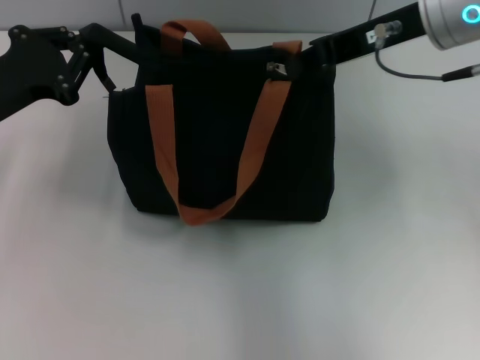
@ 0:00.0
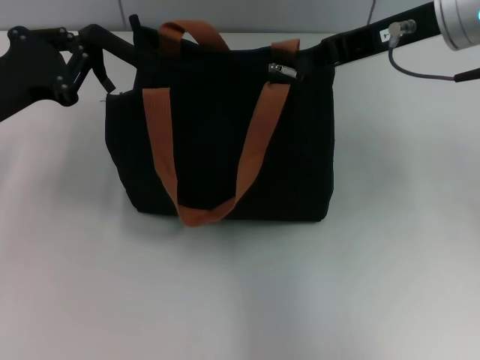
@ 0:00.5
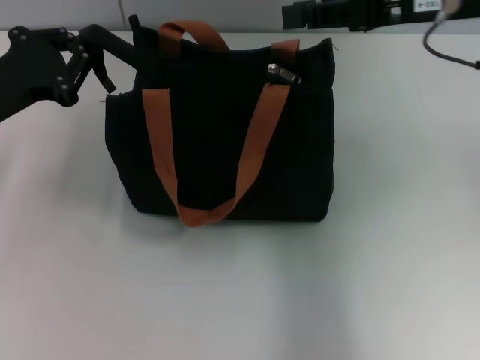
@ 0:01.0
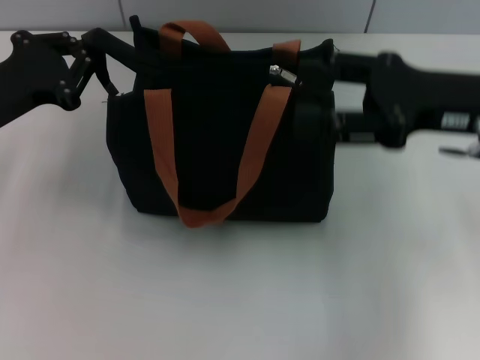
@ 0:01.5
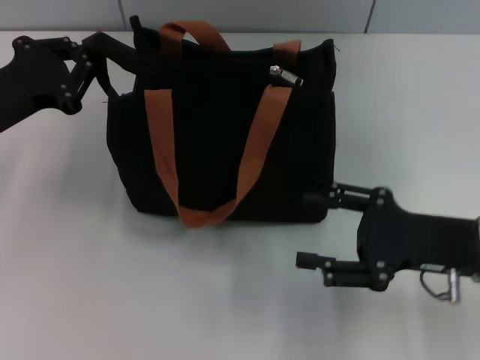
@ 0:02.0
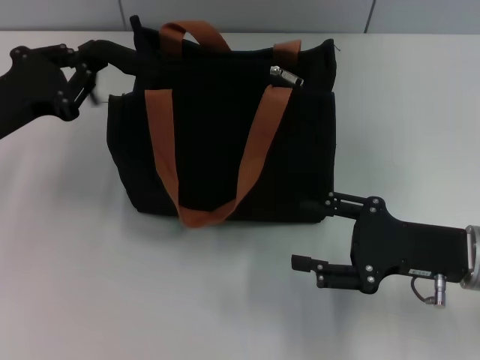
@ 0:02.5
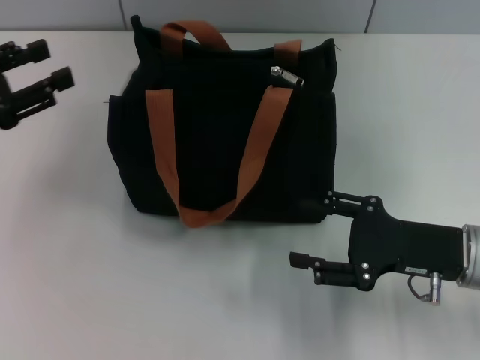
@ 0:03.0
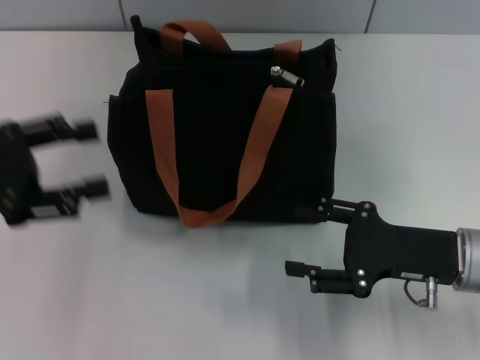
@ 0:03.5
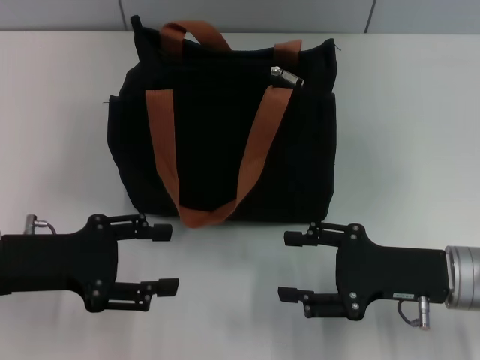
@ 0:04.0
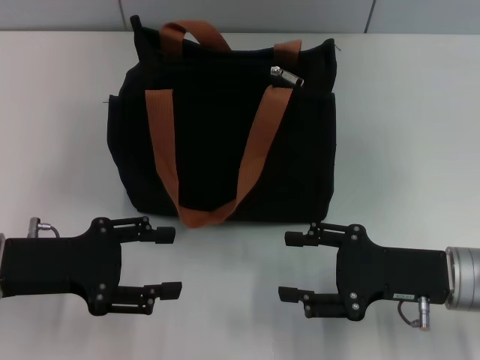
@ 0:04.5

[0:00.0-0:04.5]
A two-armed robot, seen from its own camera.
0:00.0 to 0:02.0: The right gripper travels downward, backward and to the right by some 25 cm, and opens up.
0:02.0 to 0:04.5: The left gripper is displaced backward by approximately 10 cm, and opens up.
